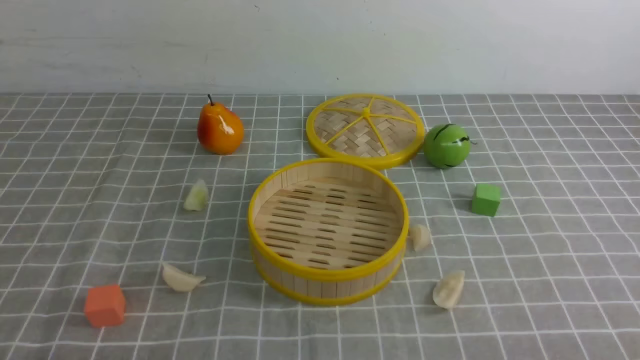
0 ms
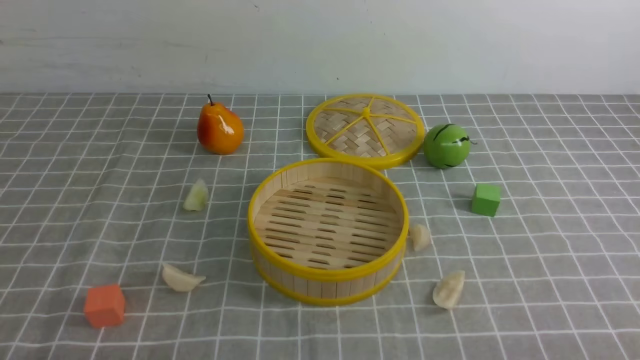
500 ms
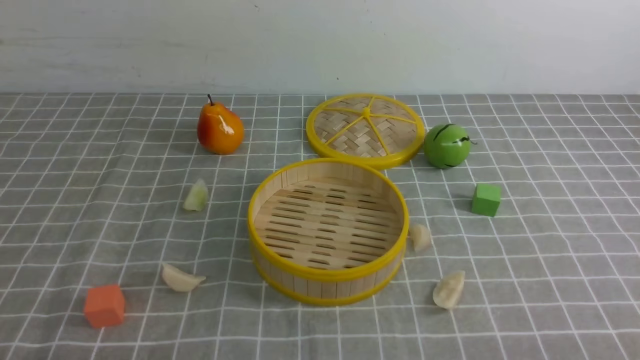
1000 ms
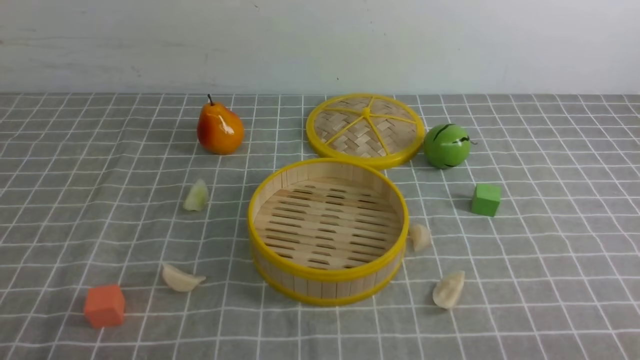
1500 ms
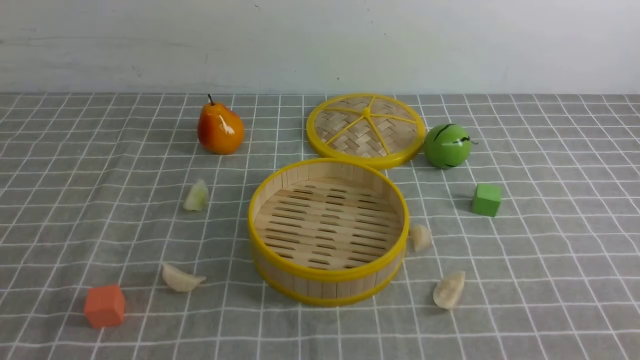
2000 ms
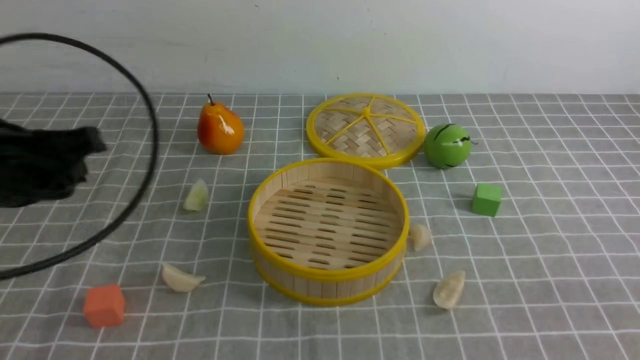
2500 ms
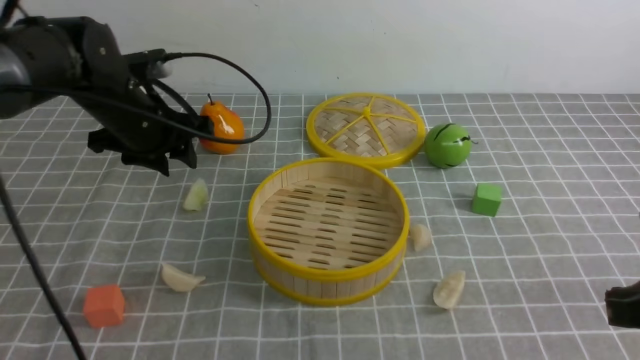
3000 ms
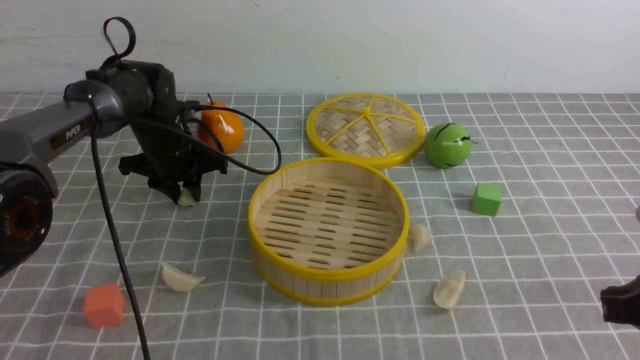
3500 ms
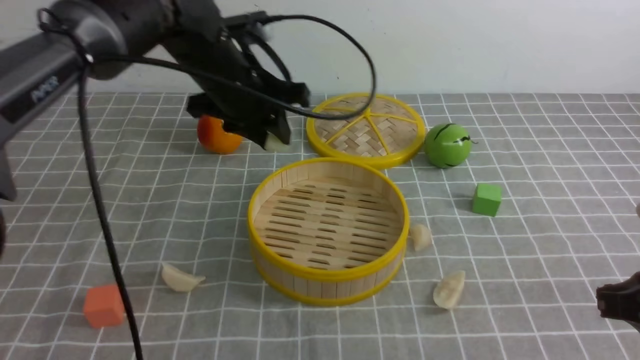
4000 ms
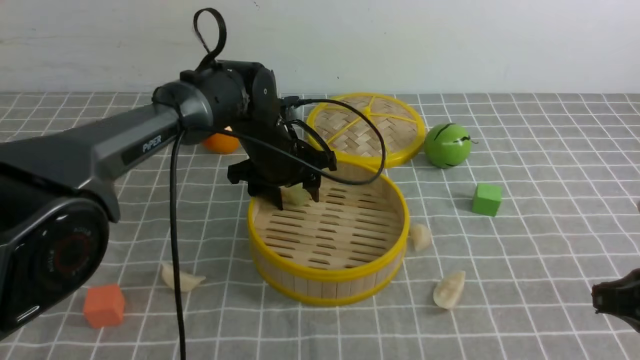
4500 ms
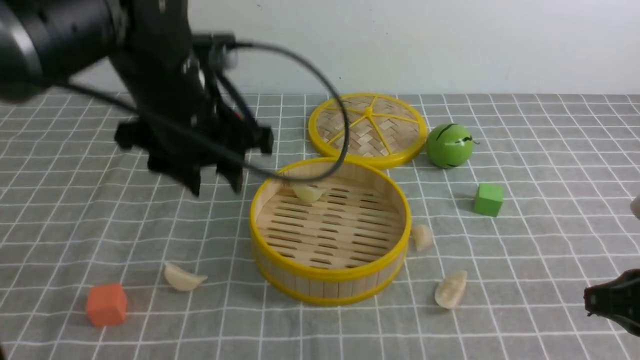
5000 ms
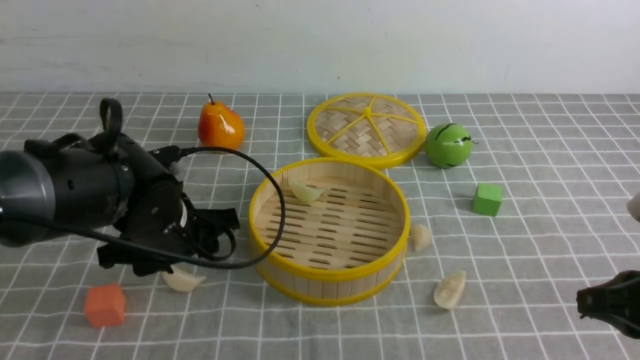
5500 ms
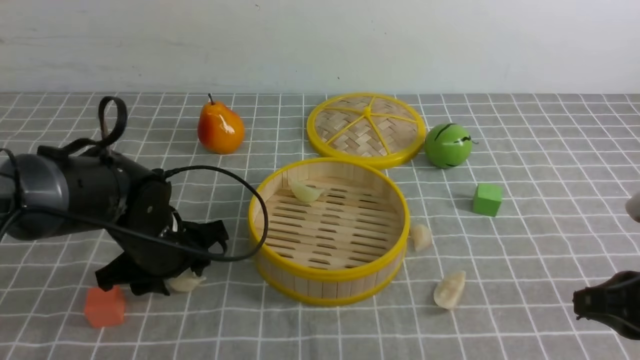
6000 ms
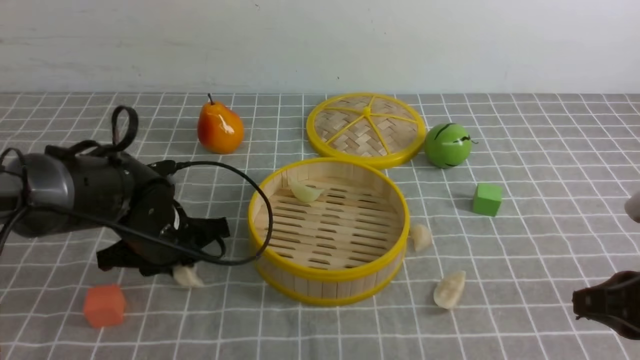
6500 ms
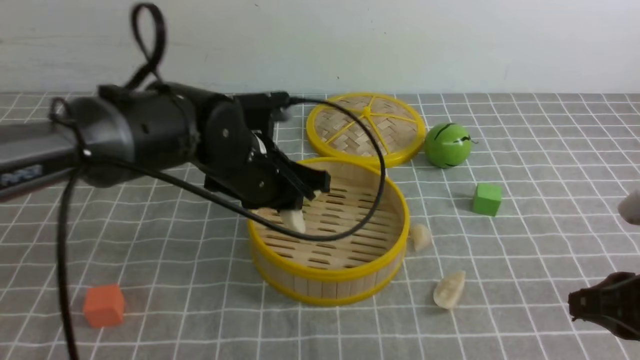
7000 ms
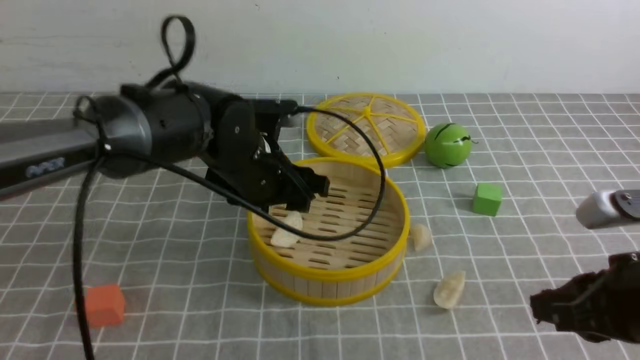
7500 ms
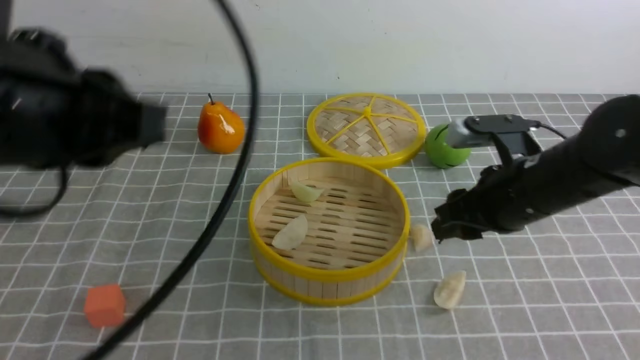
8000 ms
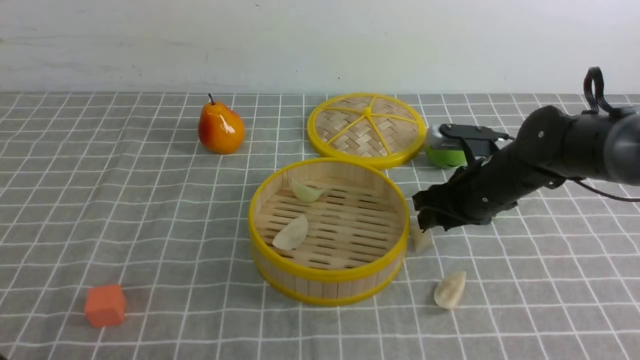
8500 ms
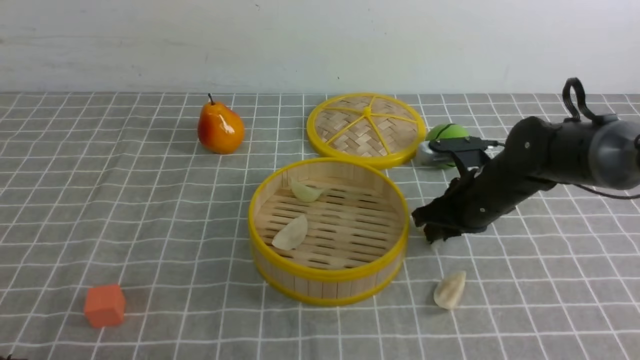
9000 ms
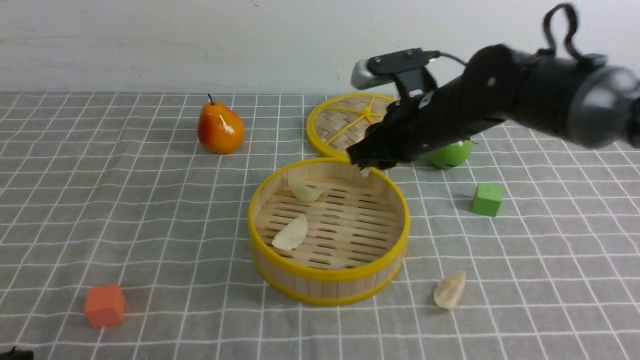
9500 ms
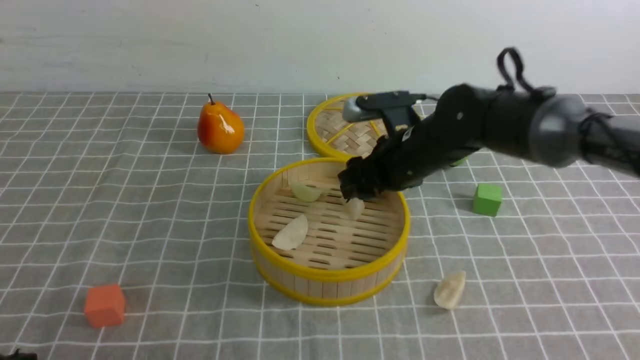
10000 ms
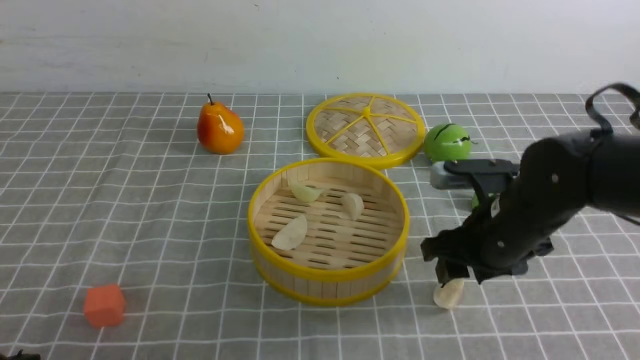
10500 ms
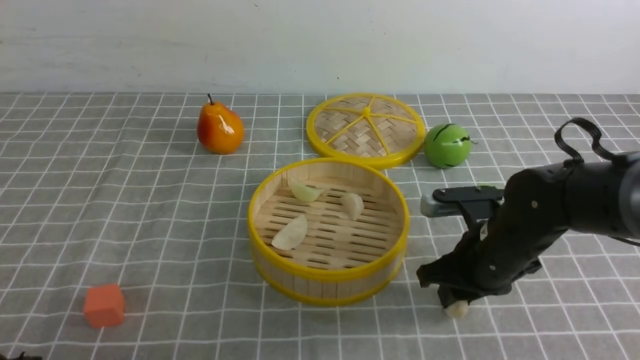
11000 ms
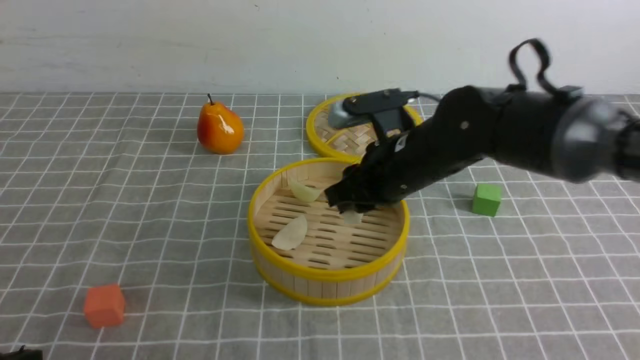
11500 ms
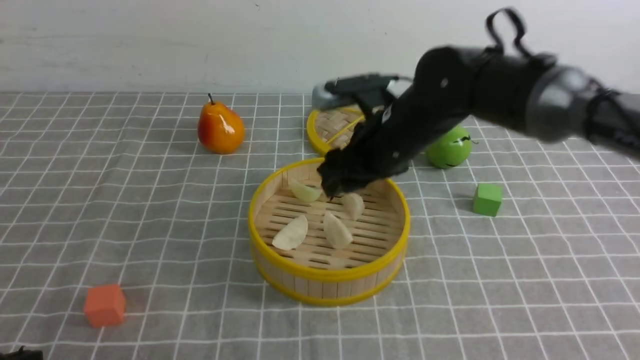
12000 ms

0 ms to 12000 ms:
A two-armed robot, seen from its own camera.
Task of the whole recording: put the dumplings into the steamer on the table with the grey tablecloth.
Step, 0 ms to 3500 ms: use the left arm to grab a dumpling.
Step, 4000 ms to 4500 ms: use the left arm to put the dumpling into the steamer.
Step, 5000 ms to 6500 ms: use the left arm to grab a dumpling.
Step, 7000 ms to 7500 ms: use the left arm to put the dumpling into the steamer.
Step, 8000 ms to 9000 ms: use the right arm to grab a dumpling.
Step, 10500 ms to 11000 ms: use the right arm to grab a dumpling.
2000 ms to 4000 ms: The left gripper moves forward and to the right, some 40 cm, and opens its fingers. The right gripper goes roughly 15 cm forward.
4000 ms to 6000 ms: The left gripper heads backward, downward and to the left, covering roughly 15 cm.
6000 ms to 8000 ms: The left gripper moves upward and backward, roughly 25 cm, and closes up. Meanwhile the right gripper is displaced forward and to the left by roughly 15 cm, and opens up.
8000 ms to 10000 ms: The right gripper heads to the left and forward, covering about 10 cm. The left gripper goes roughly 20 cm downward, backward and to the left.
10000 ms to 12000 ms: The right gripper moves upward, about 5 cm.

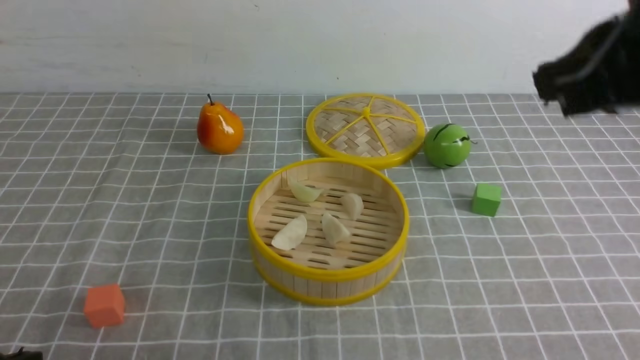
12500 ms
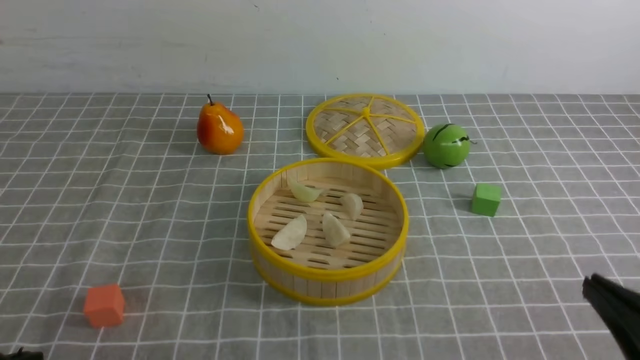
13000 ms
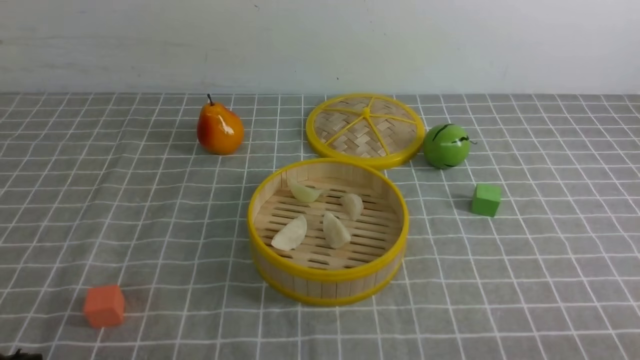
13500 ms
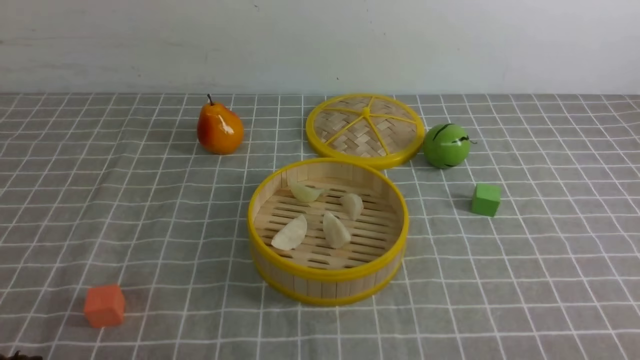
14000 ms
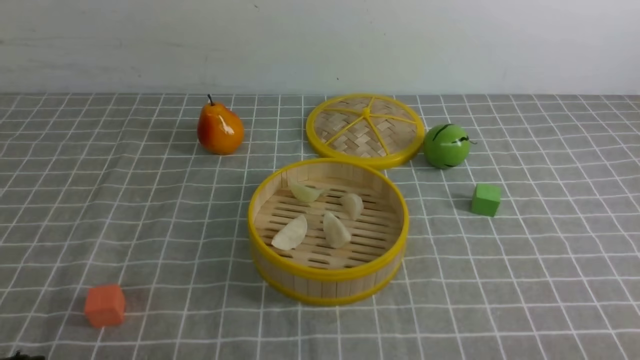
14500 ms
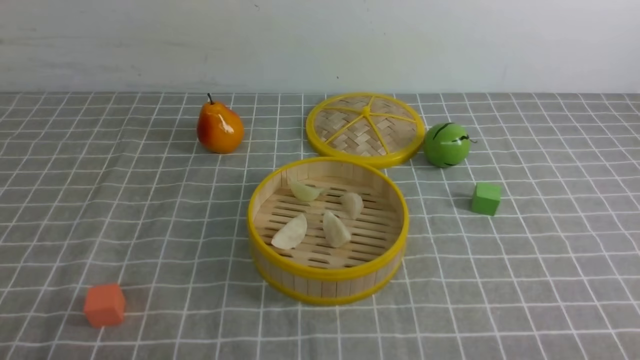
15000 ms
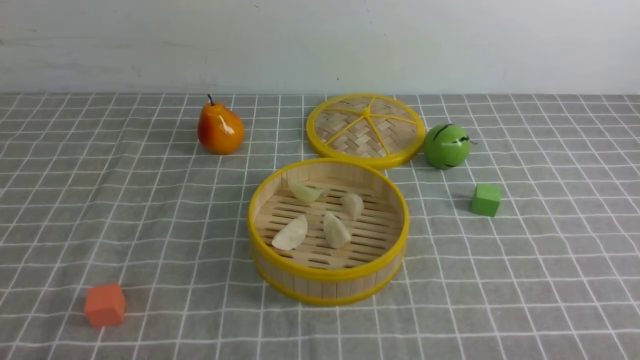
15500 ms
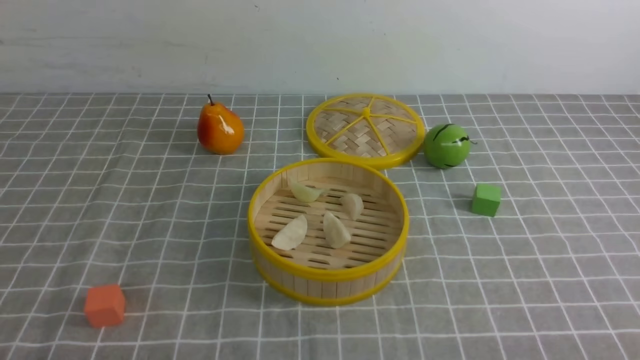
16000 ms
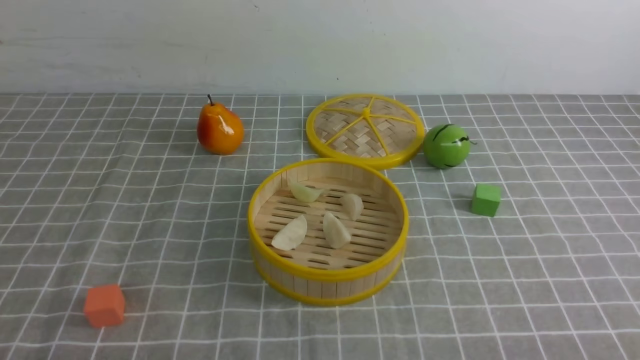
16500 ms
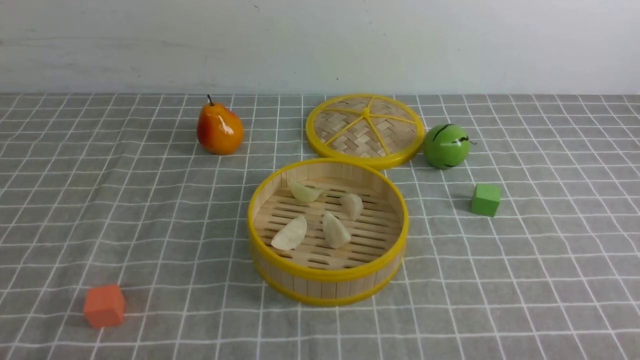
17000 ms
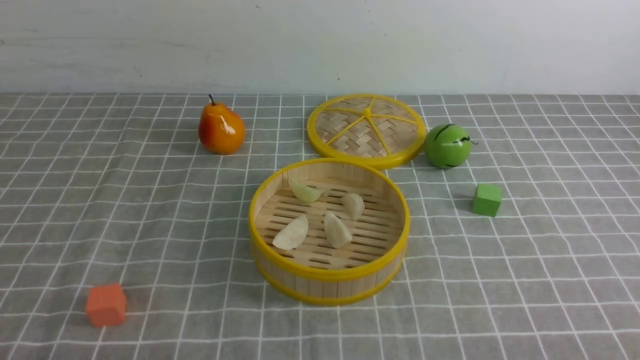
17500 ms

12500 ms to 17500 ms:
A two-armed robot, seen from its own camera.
Task of the whole recording: put the dumplings into the steamer on the table with the grey tablecloth.
12500 ms to 15000 ms: The right gripper travels downward and backward by approximately 30 cm.

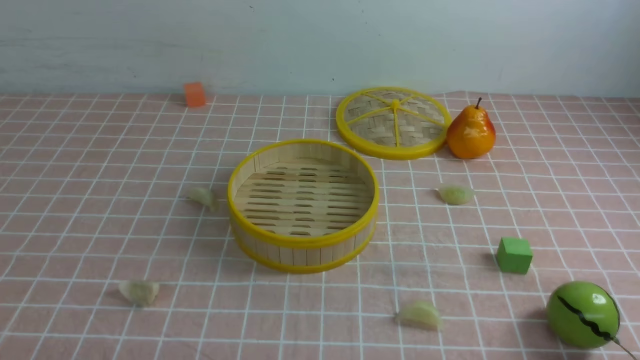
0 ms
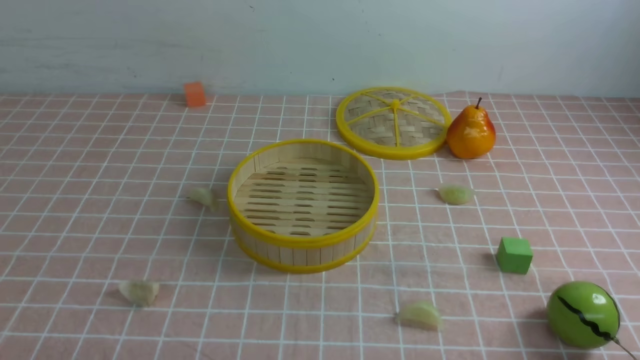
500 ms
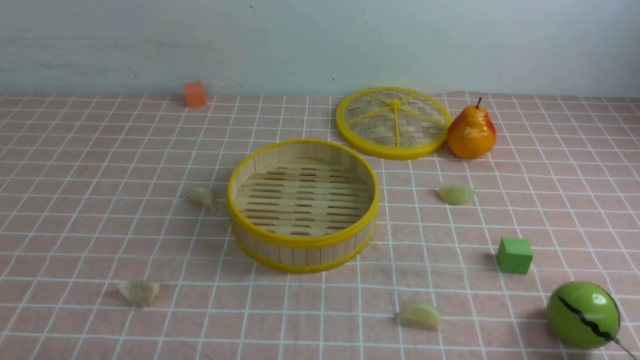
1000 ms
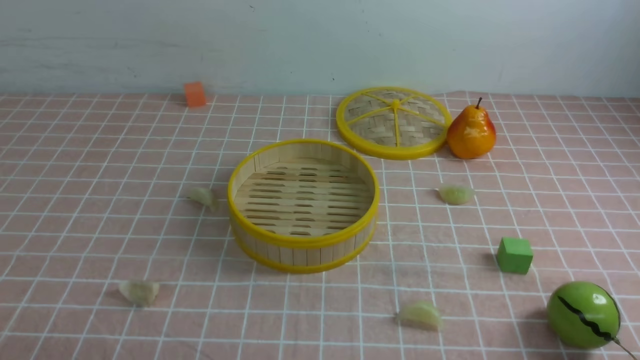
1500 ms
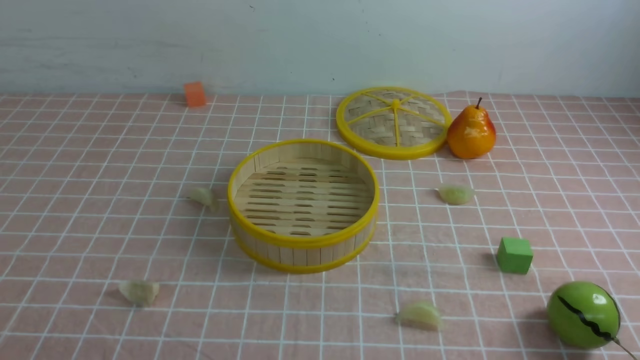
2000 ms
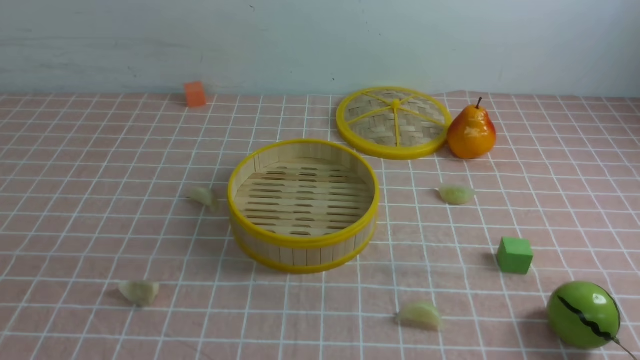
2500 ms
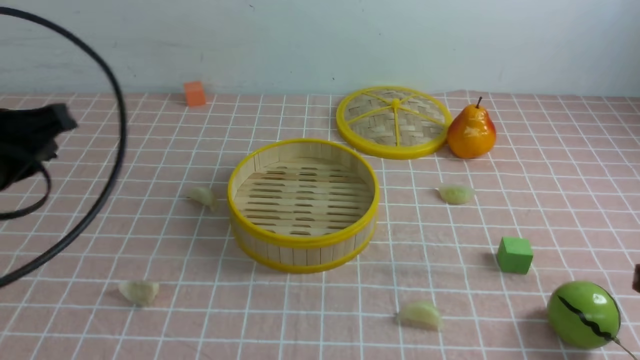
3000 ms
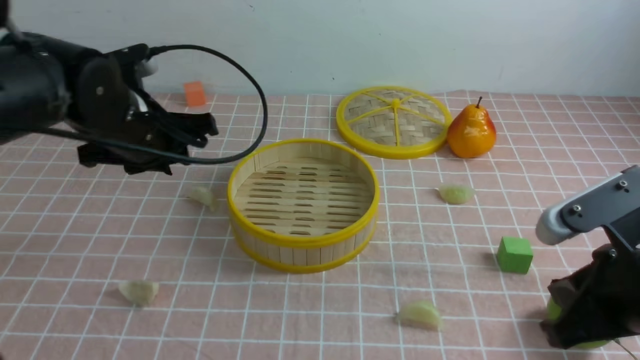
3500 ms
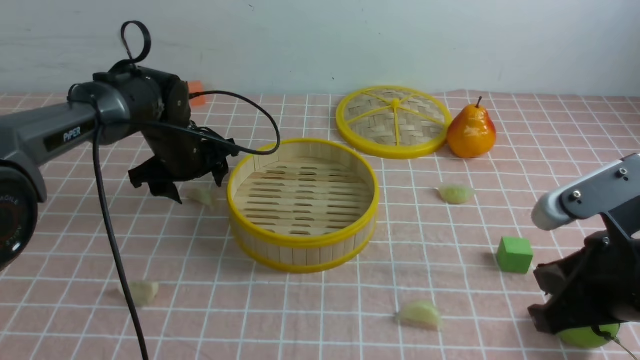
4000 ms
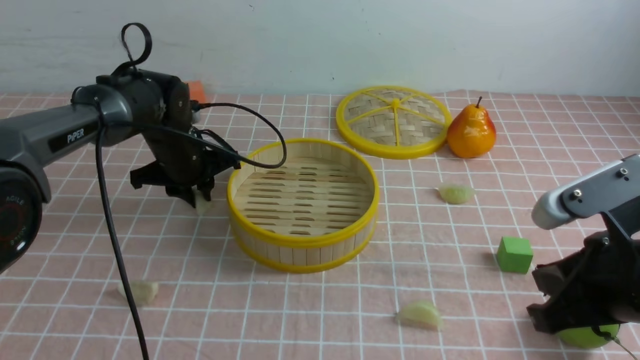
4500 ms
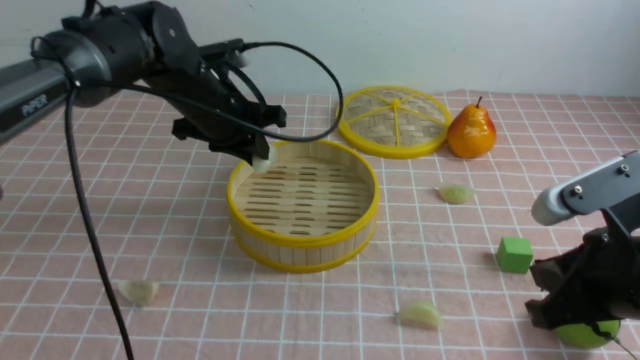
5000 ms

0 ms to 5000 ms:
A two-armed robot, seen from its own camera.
Task of the whole recording: put the dumplings into the steamer on the table with the pink tablecloth.
Step, 0 ms to 4500 ms: use the left arm to grab a dumpling.
2500 ms to 5000 ms: The right gripper travels forward and to the left by roughly 15 cm. The left gripper heads forward, covering some 40 cm, and opens its fingers.
